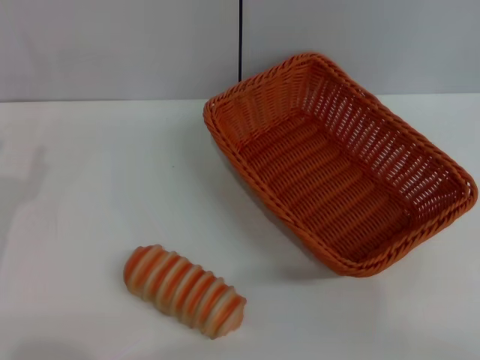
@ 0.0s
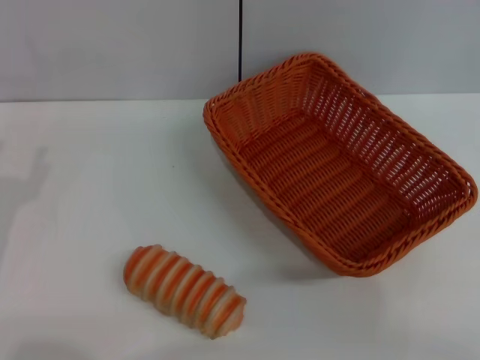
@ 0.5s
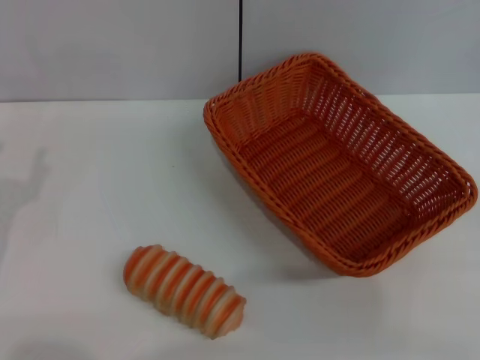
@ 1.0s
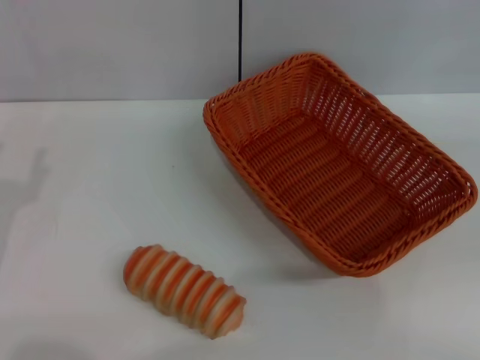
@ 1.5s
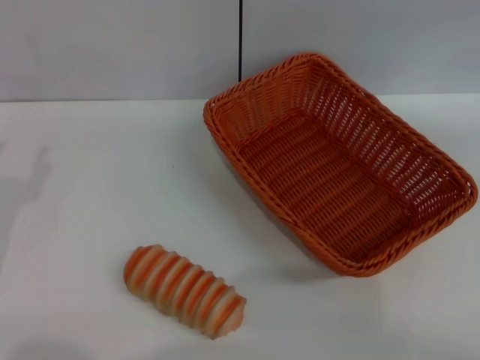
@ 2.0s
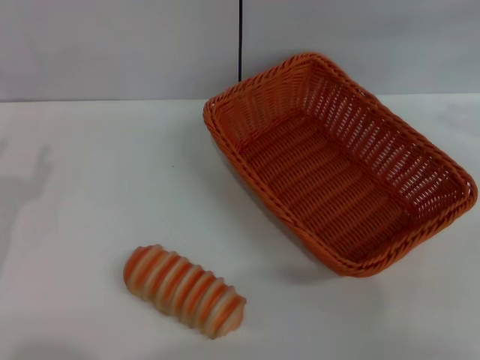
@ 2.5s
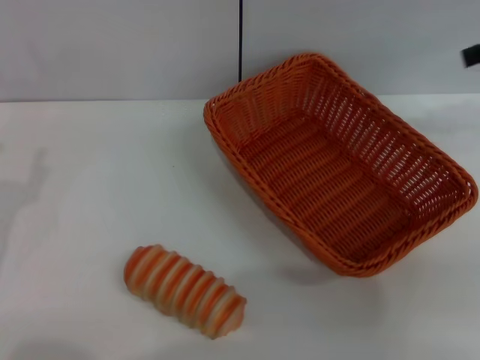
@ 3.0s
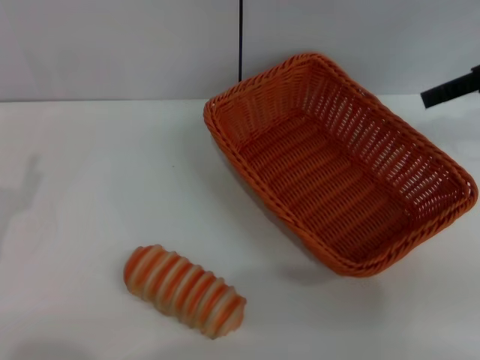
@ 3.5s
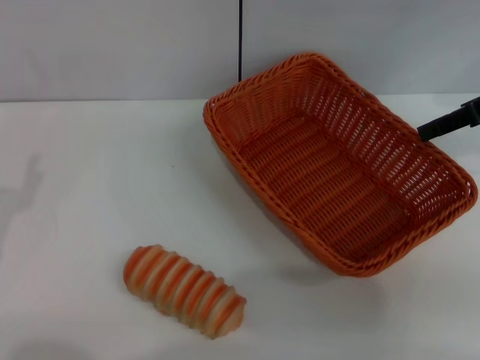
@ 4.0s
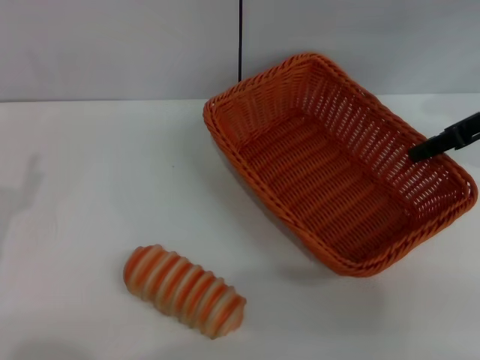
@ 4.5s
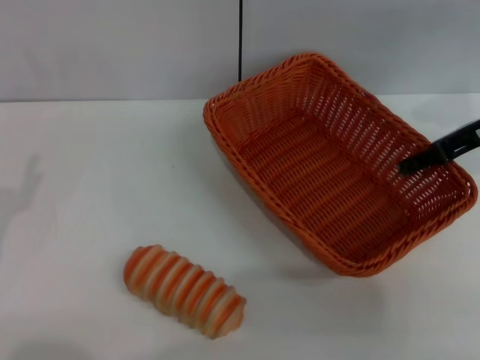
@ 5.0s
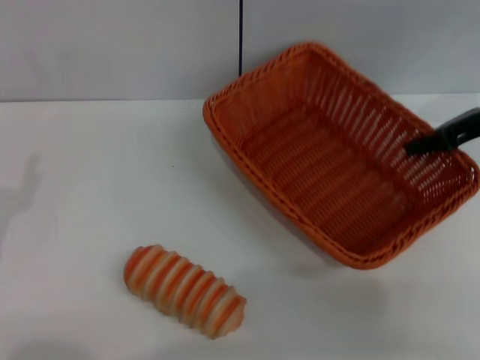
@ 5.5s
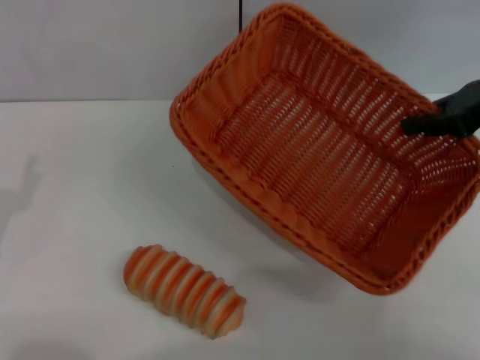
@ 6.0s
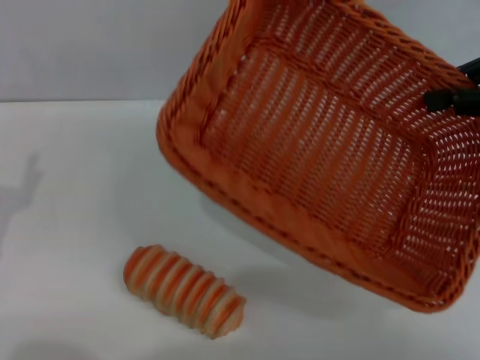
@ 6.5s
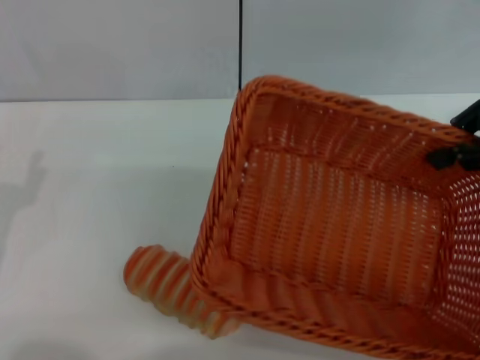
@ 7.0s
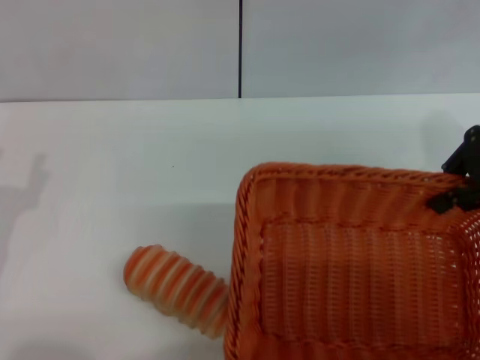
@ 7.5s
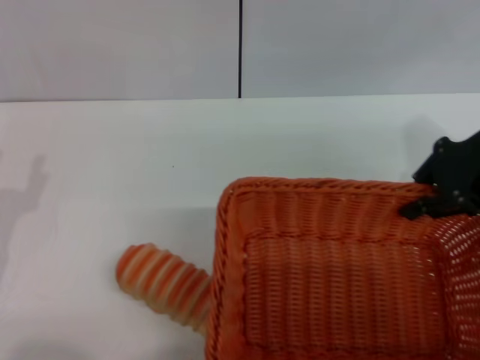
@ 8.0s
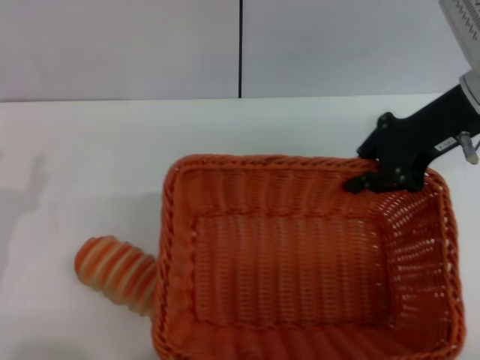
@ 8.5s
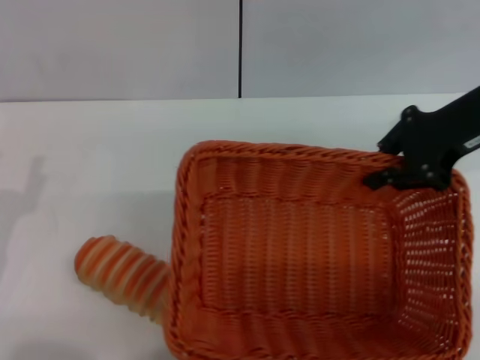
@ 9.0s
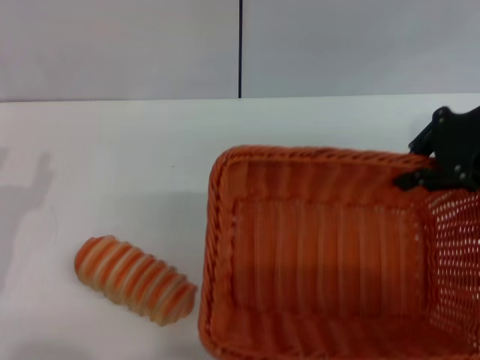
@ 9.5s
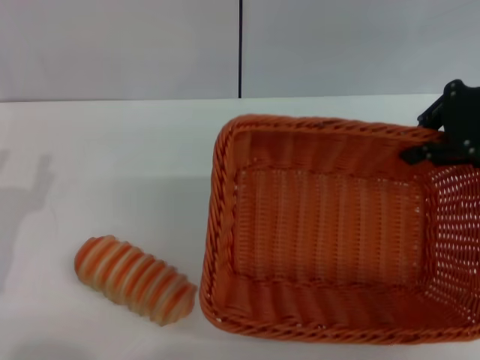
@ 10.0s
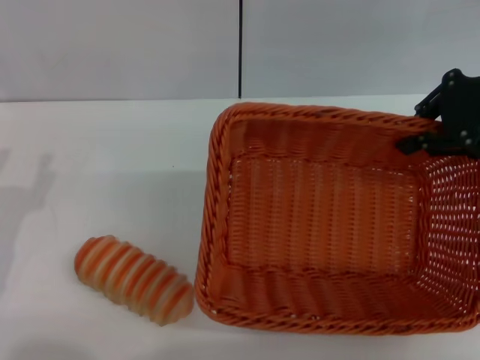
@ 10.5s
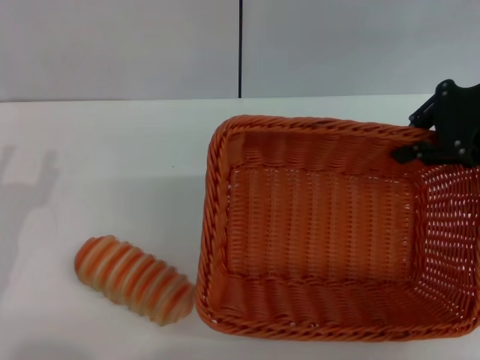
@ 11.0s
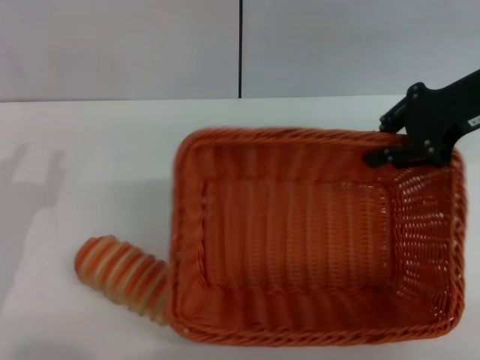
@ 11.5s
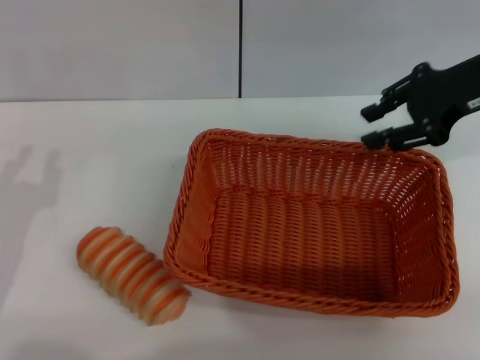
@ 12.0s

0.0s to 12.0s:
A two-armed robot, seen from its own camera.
Step, 0.0s to 6.5s: Pick up the light basket with the right gripper.
2.0s to 4.0s: The right gripper is displaced to the left, forward and downward by about 20 cm.
4.0s to 6.0s: The right gripper closes.
10.0s to 12.0s: The right gripper opens up.

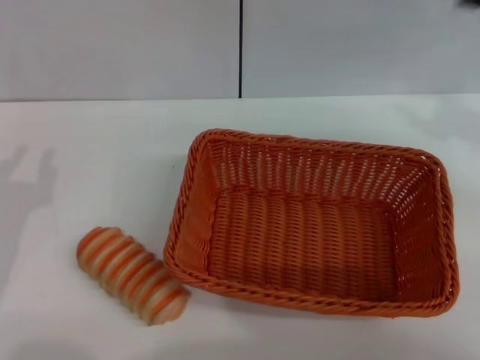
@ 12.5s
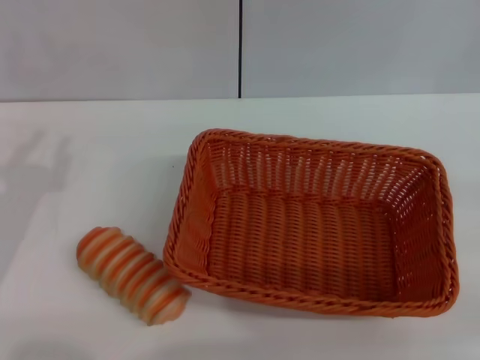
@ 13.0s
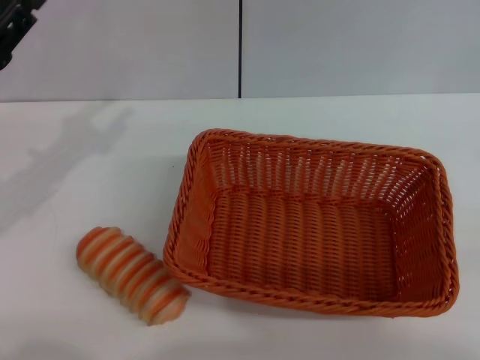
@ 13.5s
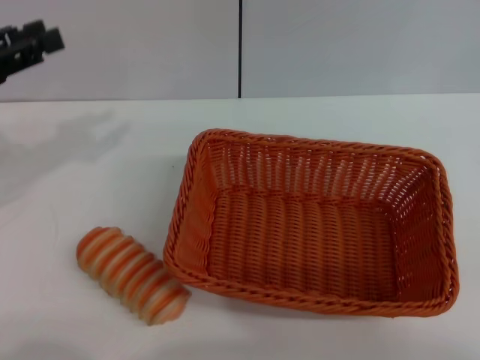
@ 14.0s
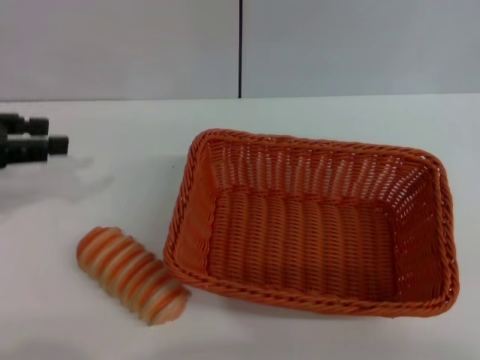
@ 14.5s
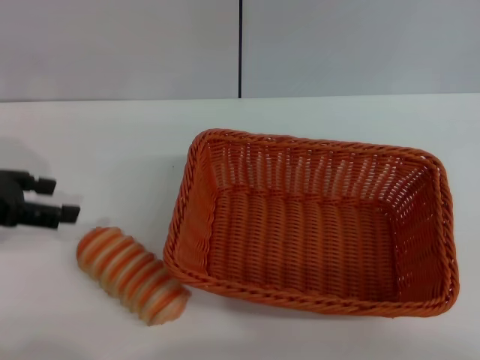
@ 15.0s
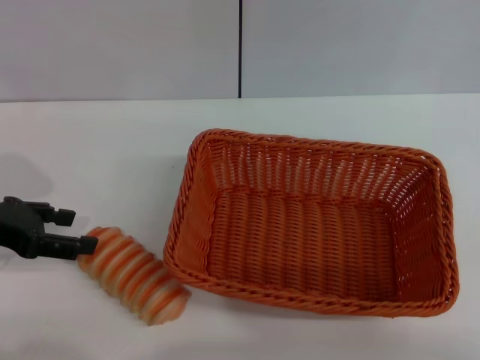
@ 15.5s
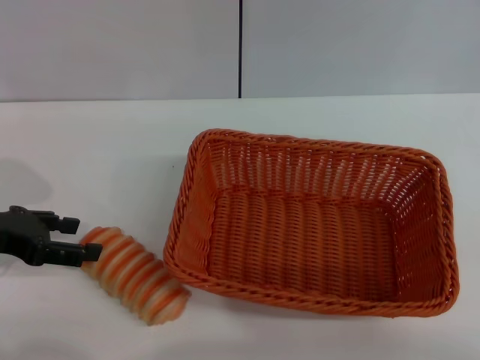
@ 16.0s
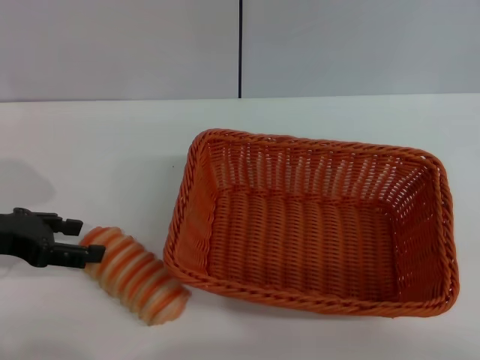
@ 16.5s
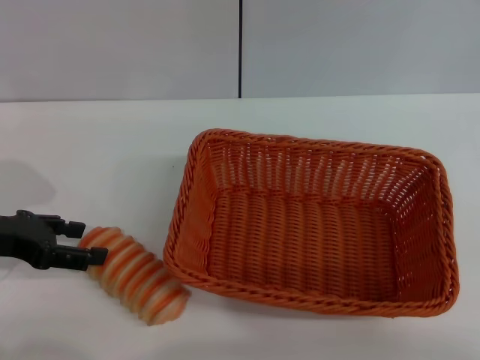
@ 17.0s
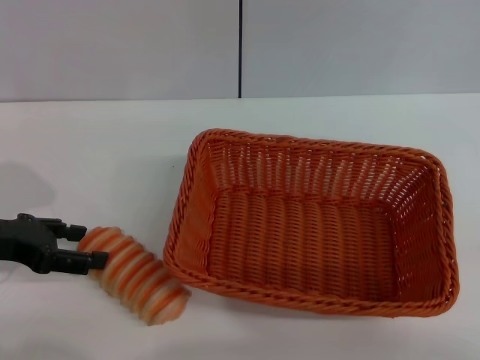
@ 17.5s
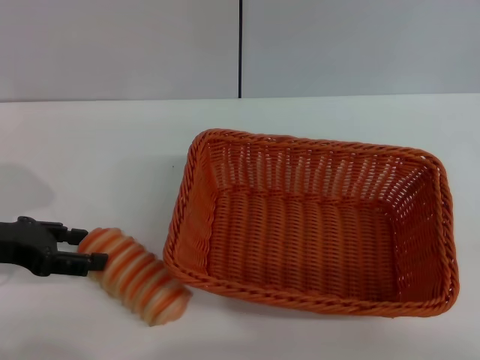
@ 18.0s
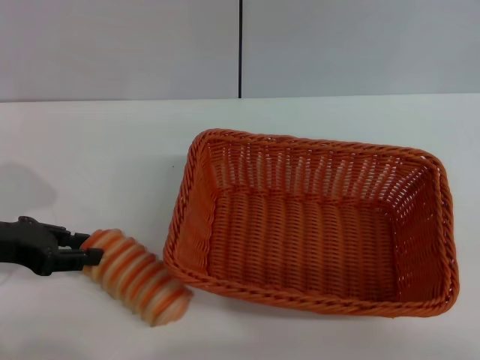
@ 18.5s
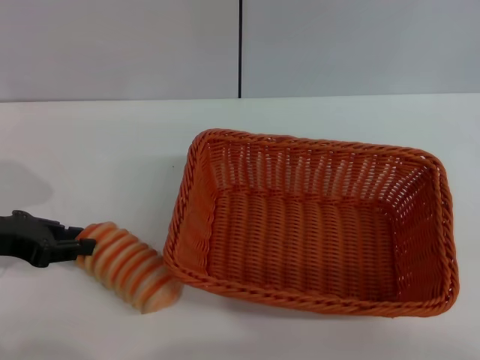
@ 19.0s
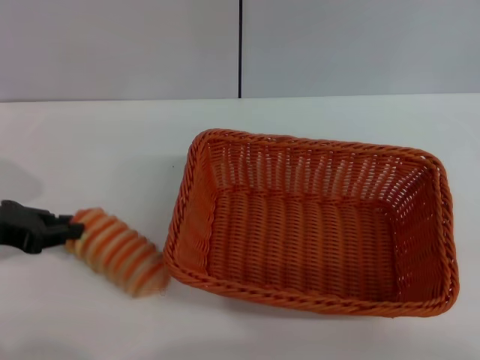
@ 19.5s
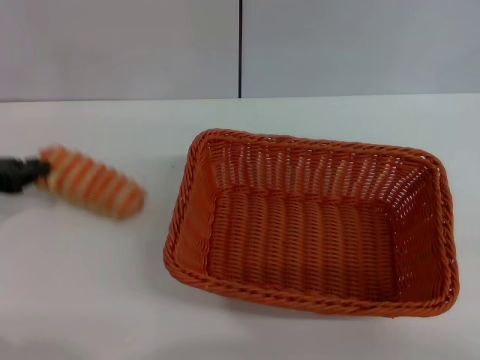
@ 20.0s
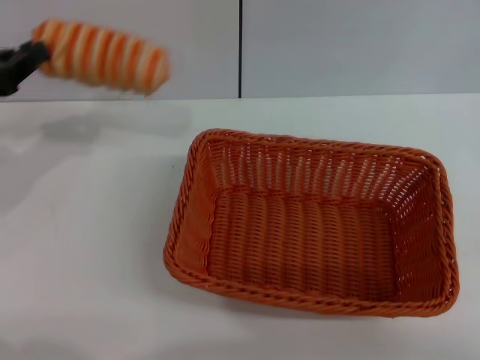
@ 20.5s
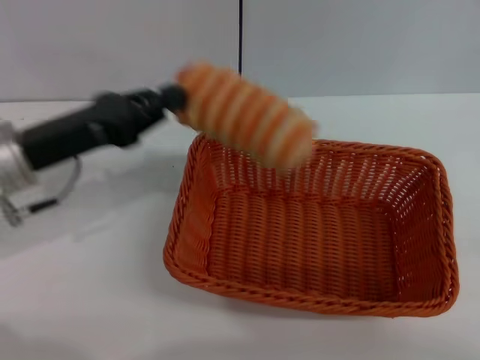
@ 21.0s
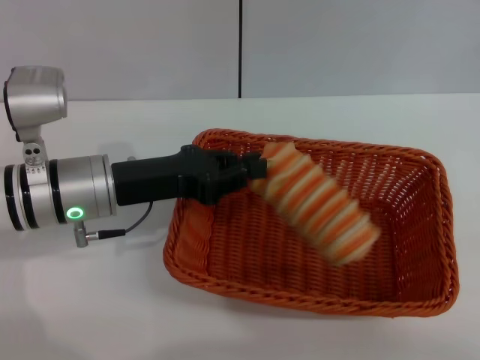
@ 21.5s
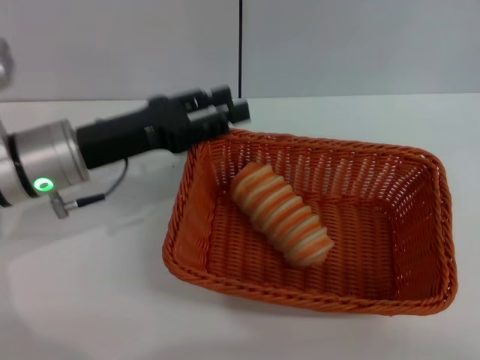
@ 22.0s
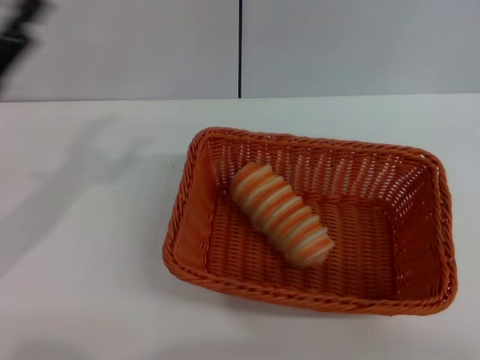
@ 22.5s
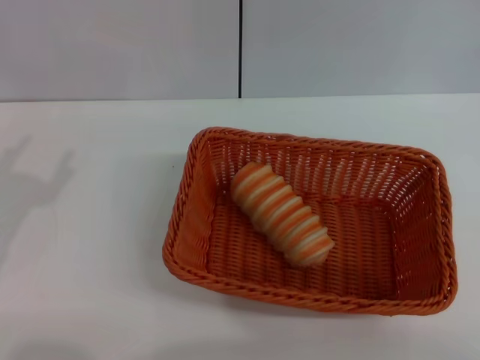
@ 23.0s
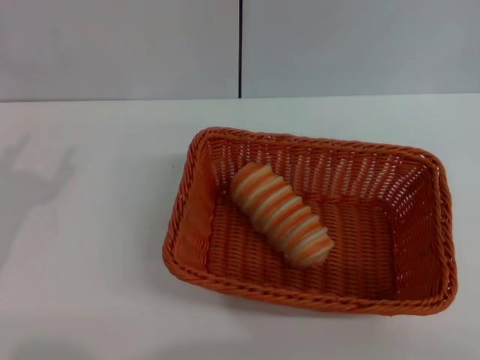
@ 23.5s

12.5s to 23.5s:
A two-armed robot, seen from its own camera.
Step, 12.5s to 20.0s: Pick up the long bread with the left gripper.
Step, 20.5s to 22.0s: Place the long bread into the light basket with the left gripper.
12.5s to 14.5s: The left gripper goes about 15 cm upward and forward.
14.5s to 16.0s: The left gripper is displaced downward by about 5 cm, and opens its fingers.
16.0s to 18.0s: Both grippers stay put.
18.0s to 20.0s: The left gripper closes up.
20.0s to 21.5s: The left gripper heads to the right, covering approximately 15 cm.
21.5s to 23.5s: The left gripper heads to the left and backward, covering roughly 15 cm, and opens.

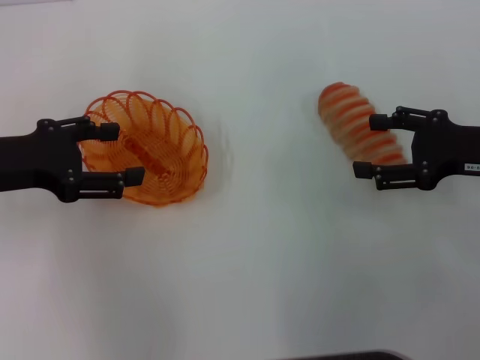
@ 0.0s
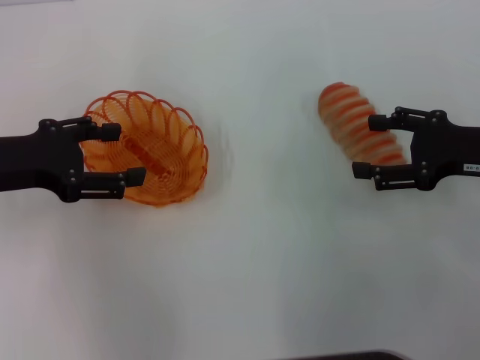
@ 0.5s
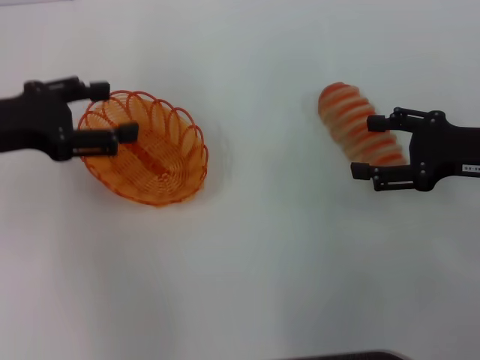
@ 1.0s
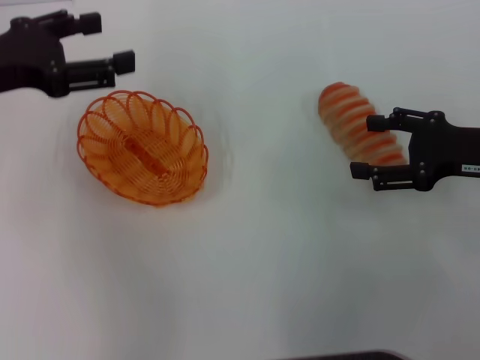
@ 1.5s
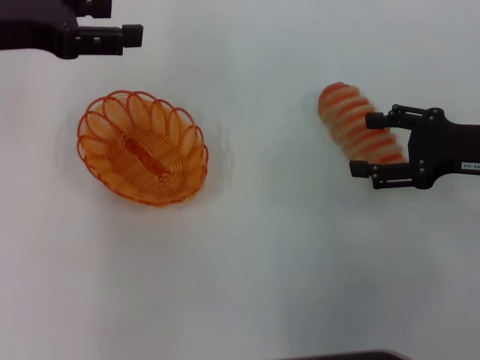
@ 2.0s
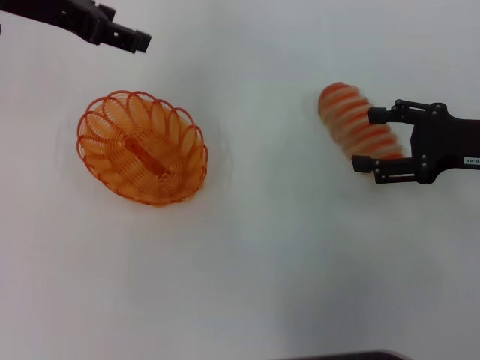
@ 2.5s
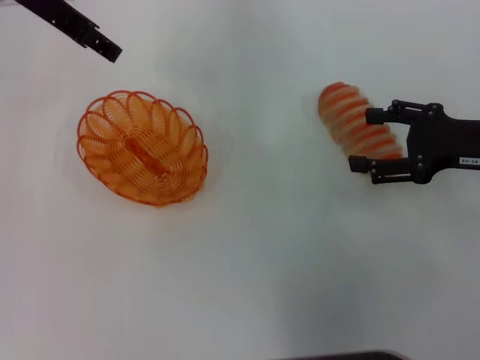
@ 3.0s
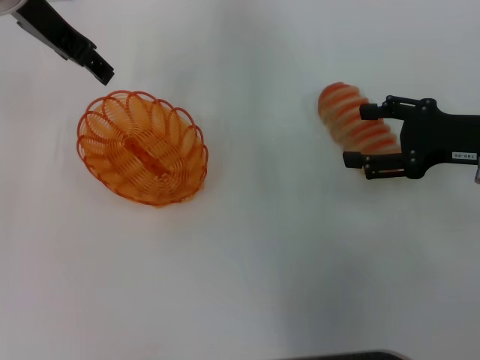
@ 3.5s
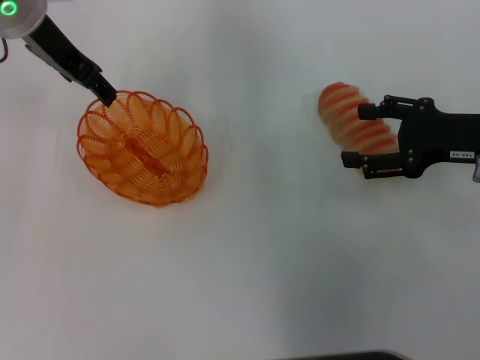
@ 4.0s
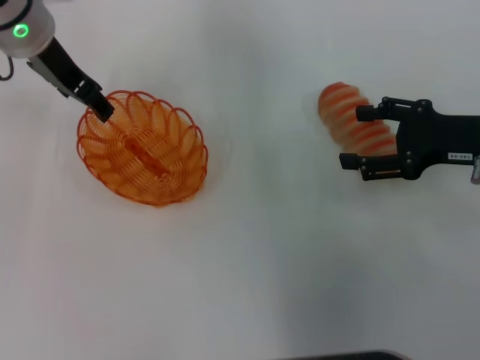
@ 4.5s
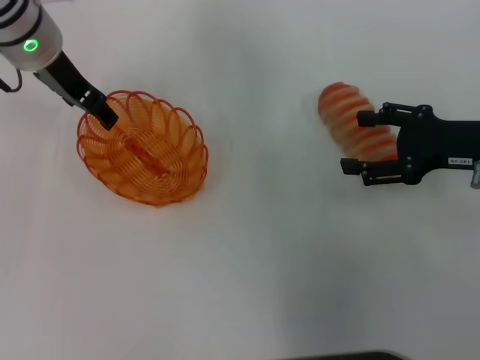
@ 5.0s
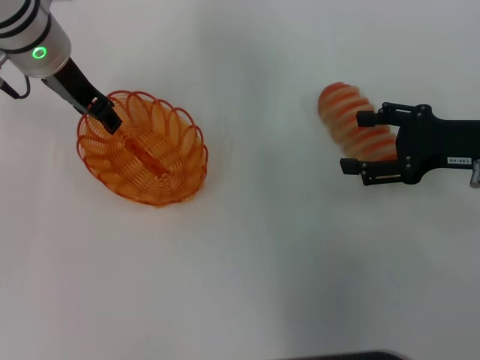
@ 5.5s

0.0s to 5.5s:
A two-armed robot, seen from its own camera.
0.0s to 2.0s: The left gripper is displaced upward and forward by roughly 10 cm.
2.0s to 3.5s: The left gripper travels to the right and forward by about 10 cm.
3.5s to 5.5s: The left gripper shifts approximately 5 cm downward.
